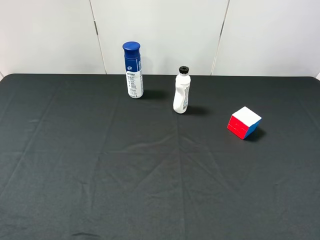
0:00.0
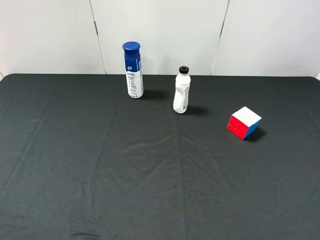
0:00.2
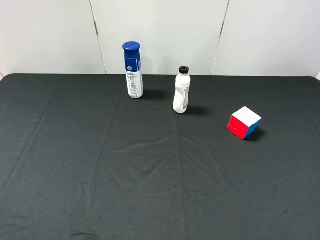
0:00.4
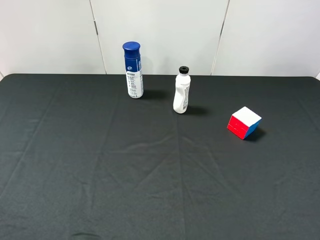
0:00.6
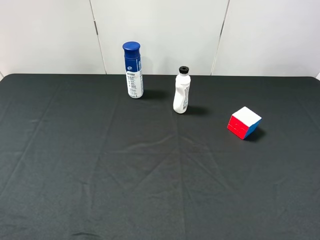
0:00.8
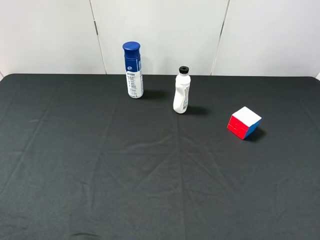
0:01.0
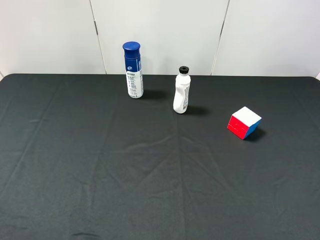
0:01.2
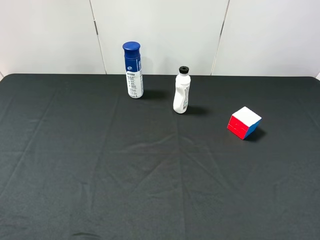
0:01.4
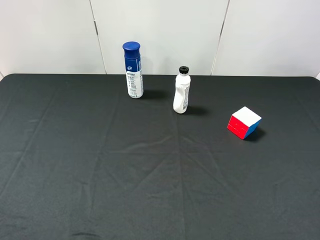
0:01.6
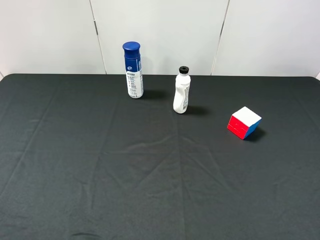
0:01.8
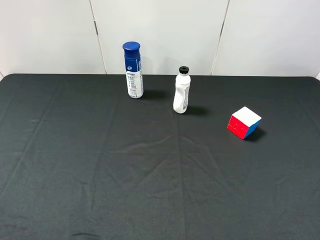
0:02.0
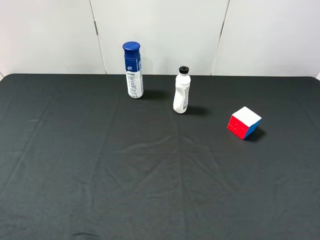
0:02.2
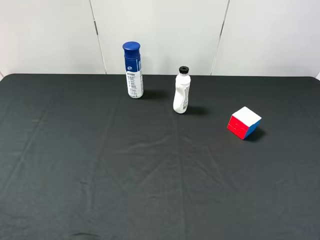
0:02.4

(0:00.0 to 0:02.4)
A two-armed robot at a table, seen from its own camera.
Task of the whole recording: use the left gripper to pick up the item and transfer it from the left gripper to the right gripper.
0:01.2 - 0:02.4: Both grippers stay put.
